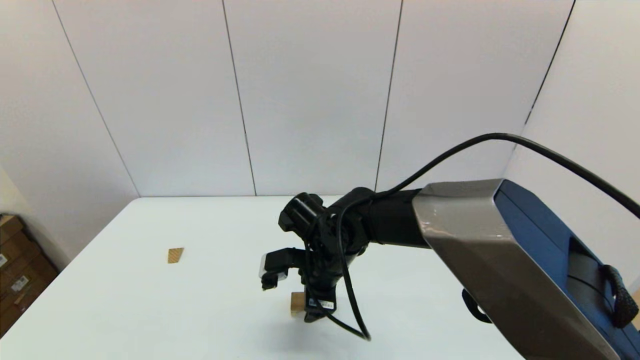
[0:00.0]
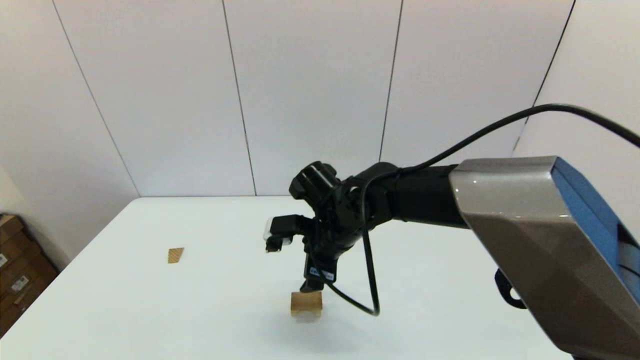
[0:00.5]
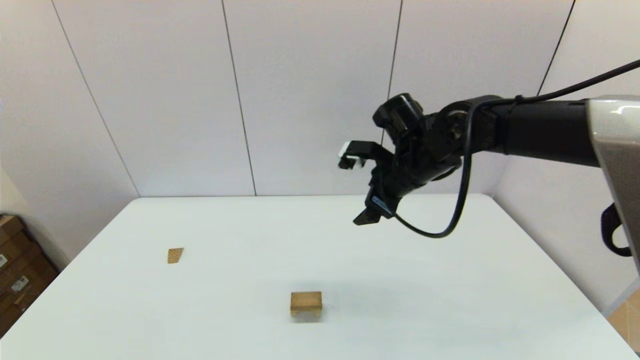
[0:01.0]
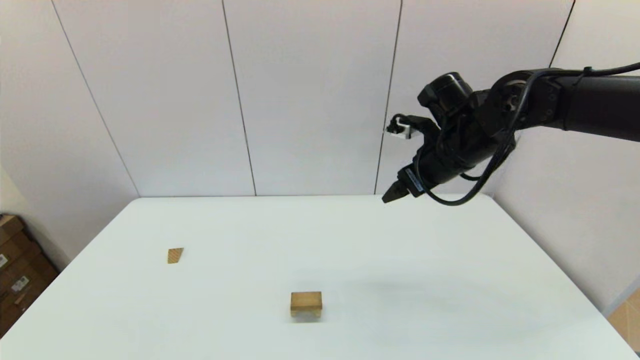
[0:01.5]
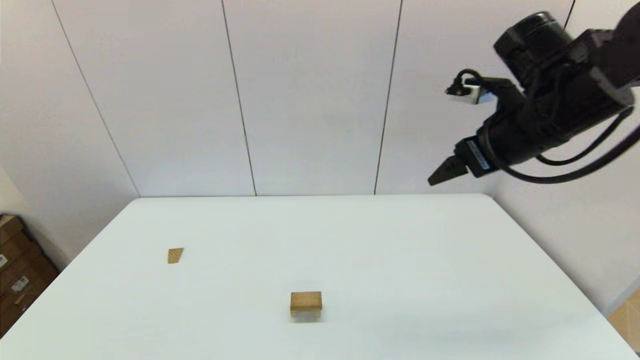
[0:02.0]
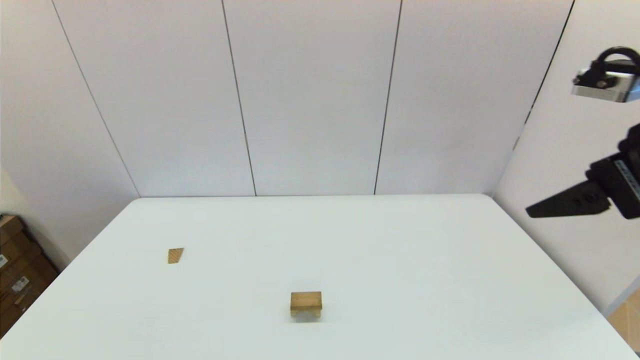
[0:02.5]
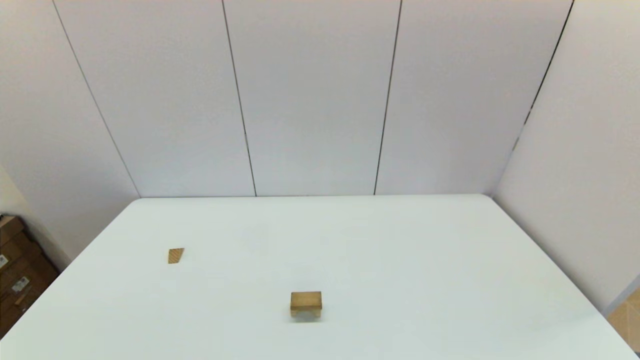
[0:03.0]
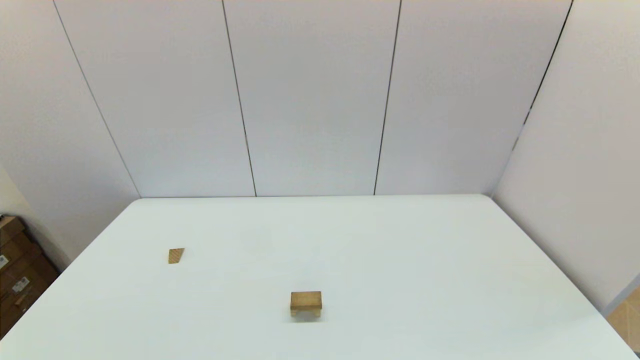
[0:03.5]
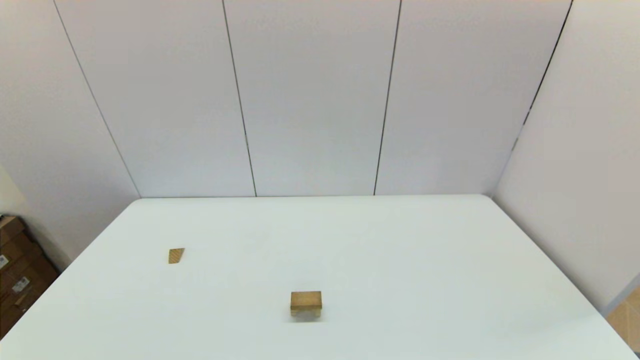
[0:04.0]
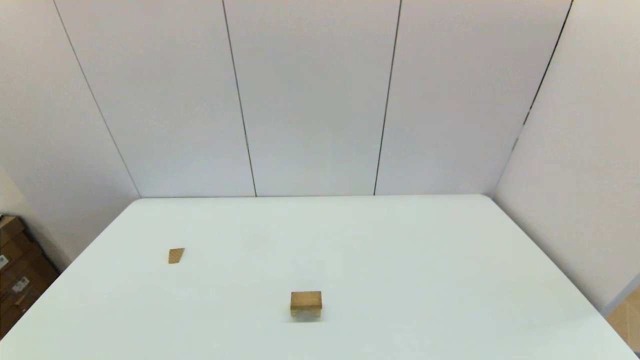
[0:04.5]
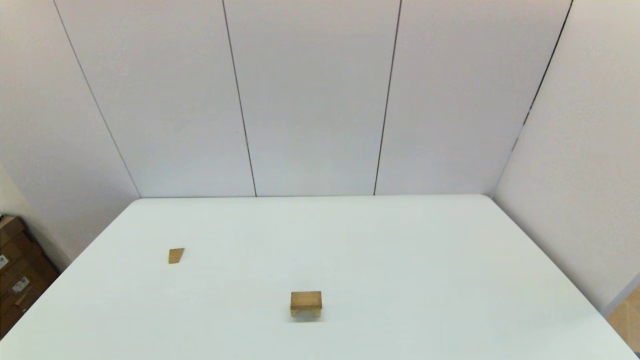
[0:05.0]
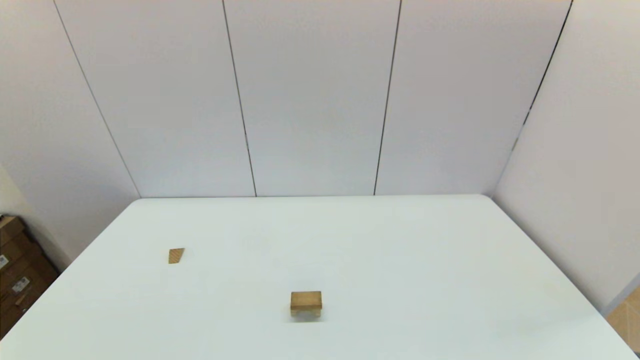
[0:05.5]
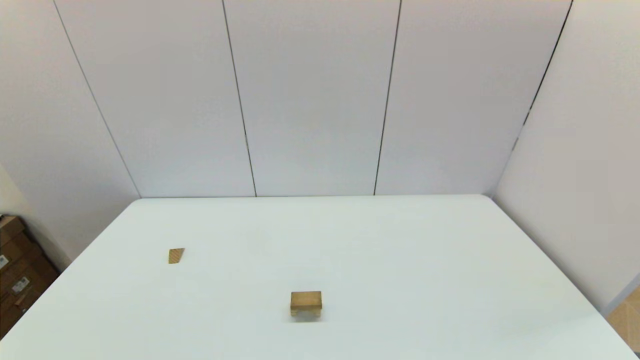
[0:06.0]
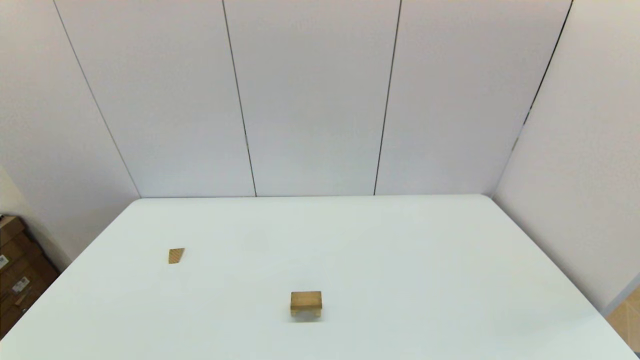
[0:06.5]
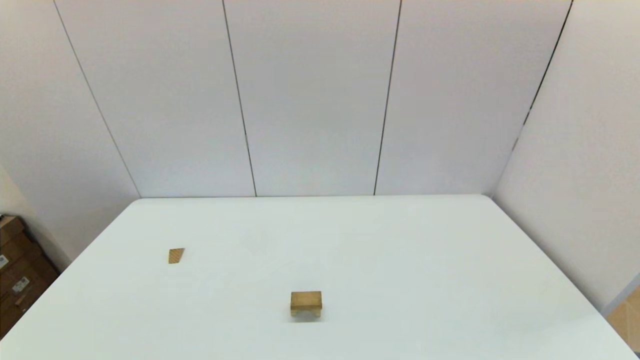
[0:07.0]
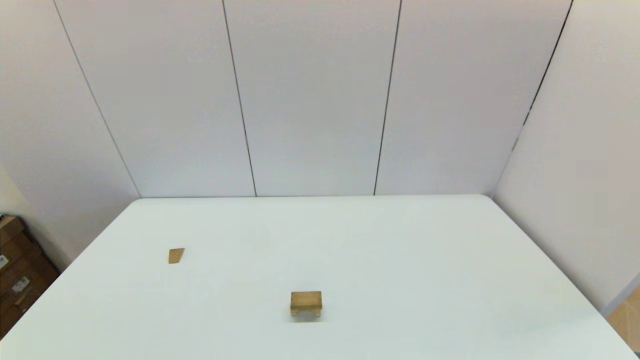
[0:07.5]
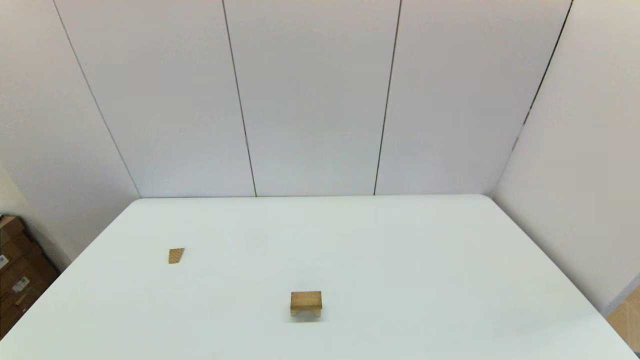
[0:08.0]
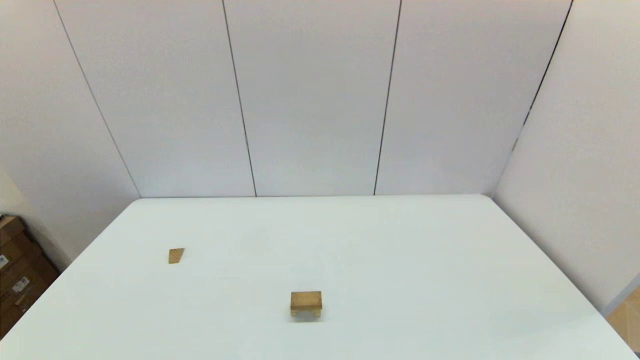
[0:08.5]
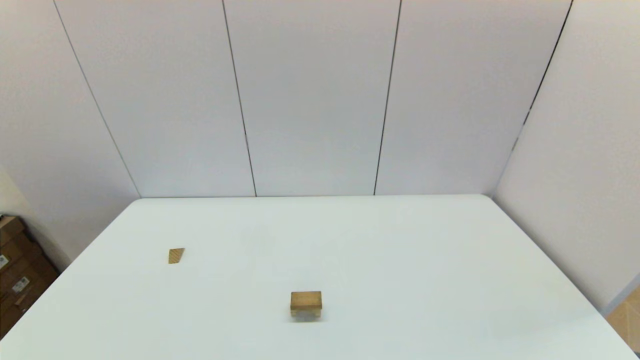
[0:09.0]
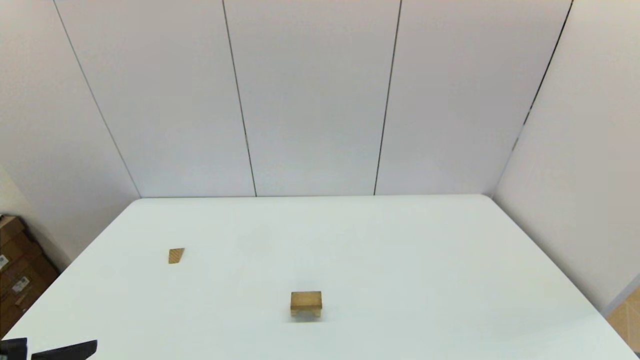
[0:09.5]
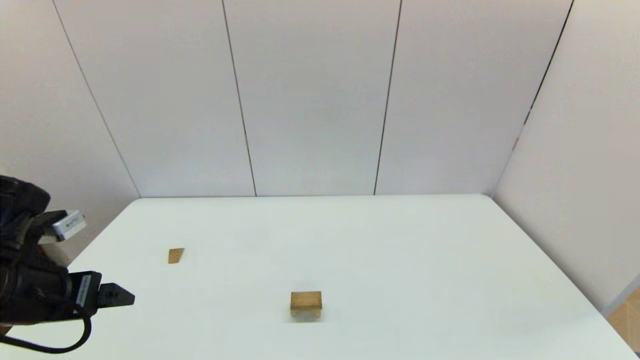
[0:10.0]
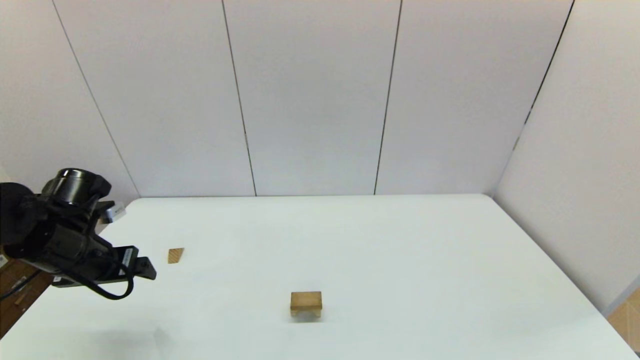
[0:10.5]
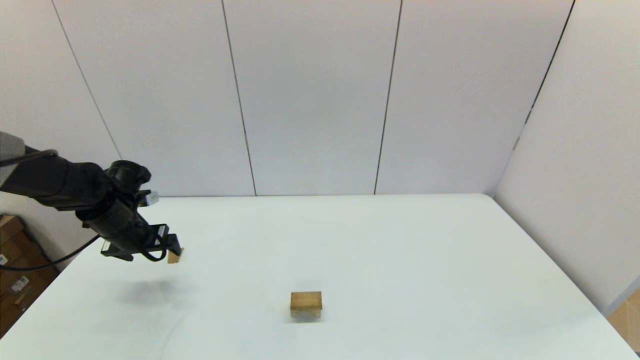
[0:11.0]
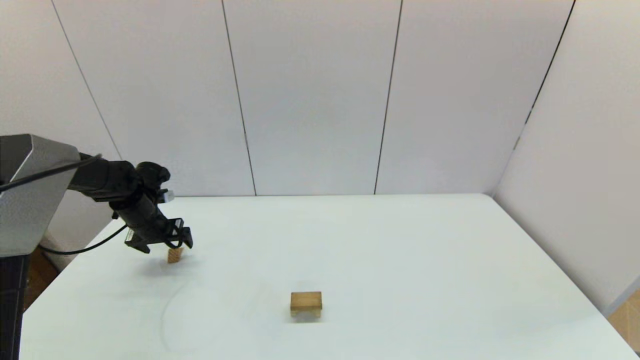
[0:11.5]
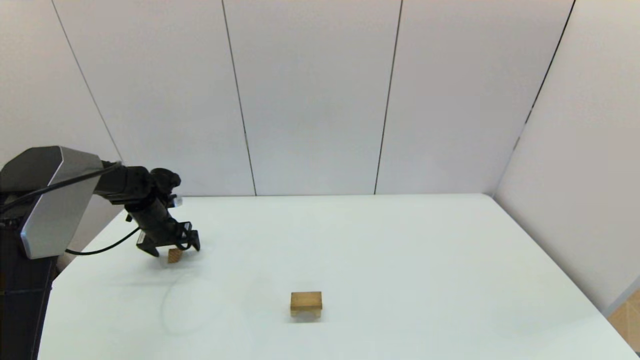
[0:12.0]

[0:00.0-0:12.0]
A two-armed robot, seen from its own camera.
Task of the whole recording: place the arched building blocks in the center of the table, set up the rectangular building blocks, and then set up the triangular building blocks.
0:00.0 to 0:02.0: The right gripper goes roughly 35 cm to the right and upward.
0:02.0 to 0:04.0: The right gripper goes some 35 cm backward.
0:06.0 to 0:08.0: Both grippers stay put.
0:08.0 to 0:10.0: The left gripper heads forward, covering approximately 20 cm.
0:10.0 to 0:12.0: The left gripper moves forward and downward, about 30 cm.

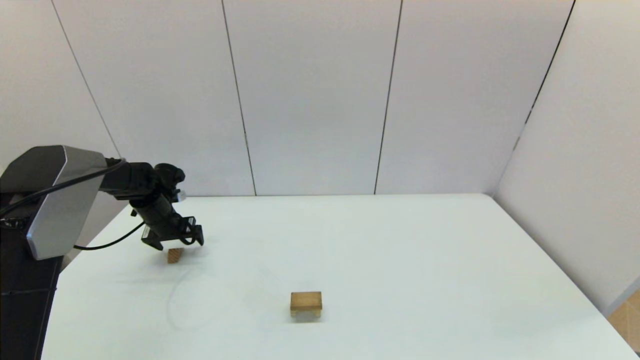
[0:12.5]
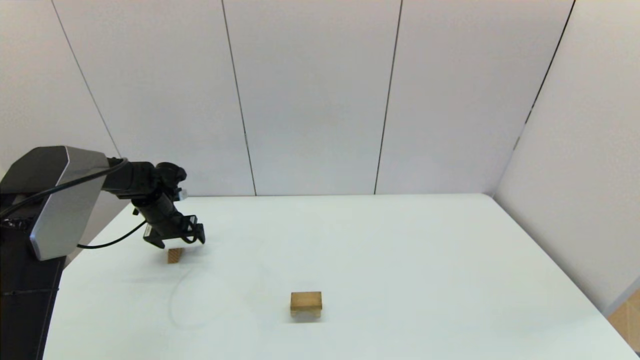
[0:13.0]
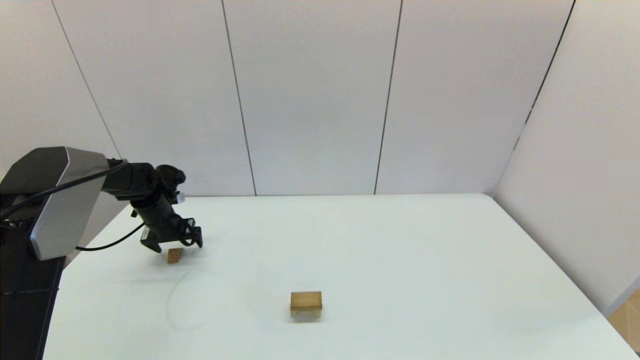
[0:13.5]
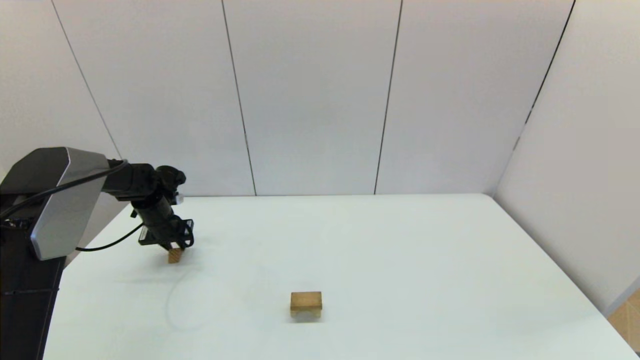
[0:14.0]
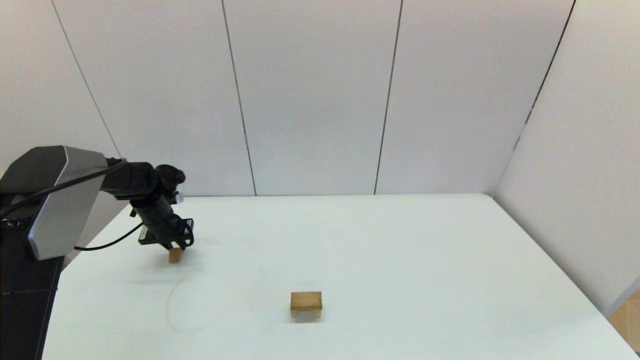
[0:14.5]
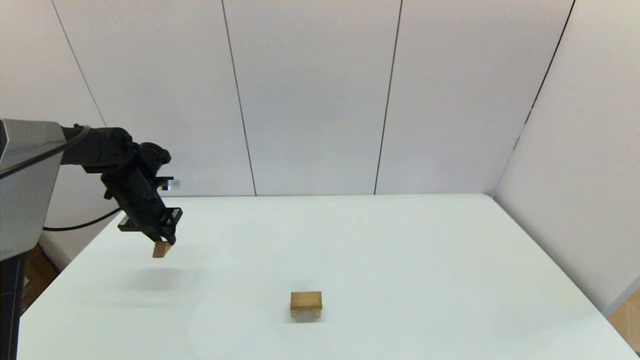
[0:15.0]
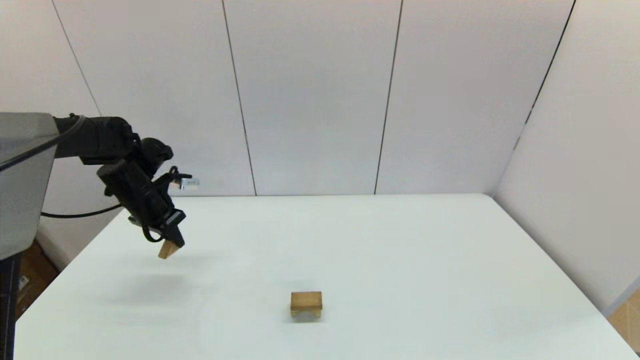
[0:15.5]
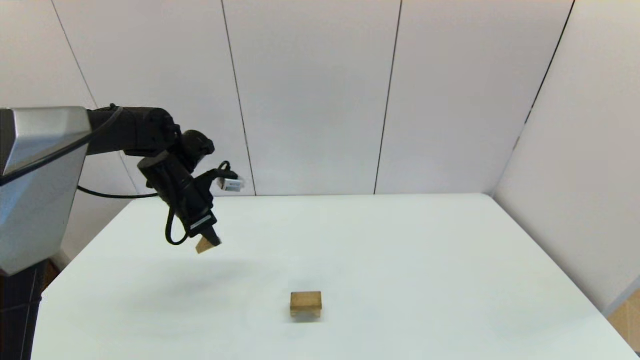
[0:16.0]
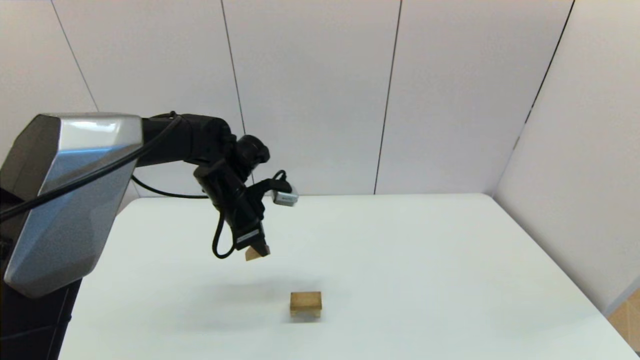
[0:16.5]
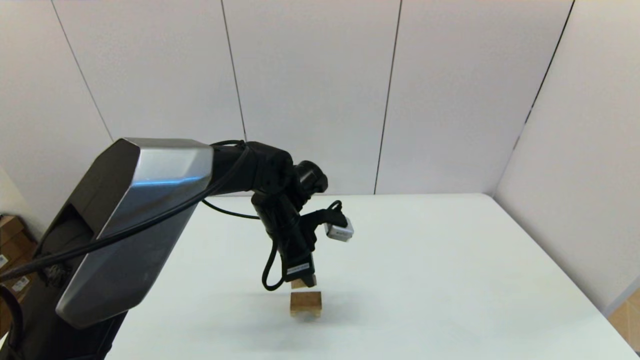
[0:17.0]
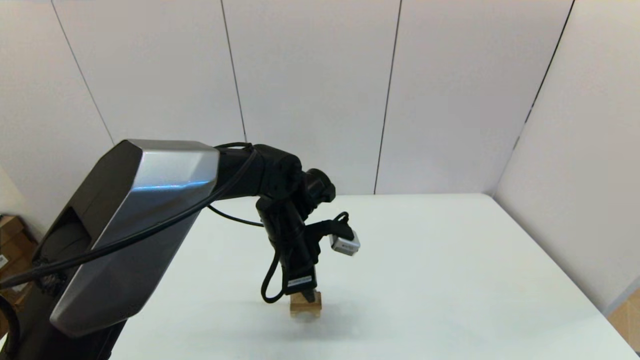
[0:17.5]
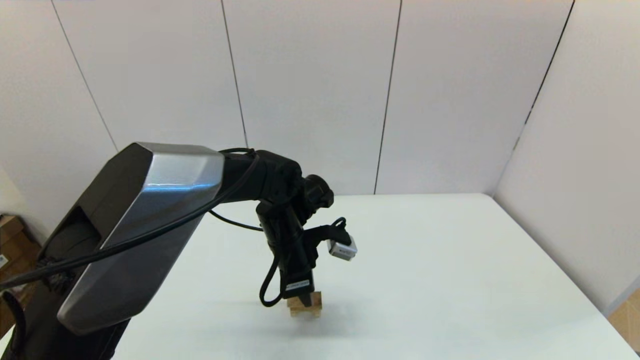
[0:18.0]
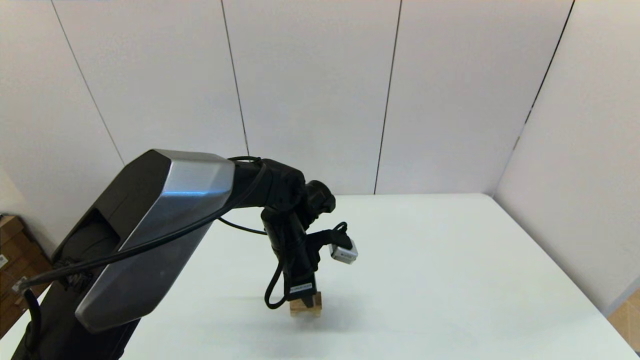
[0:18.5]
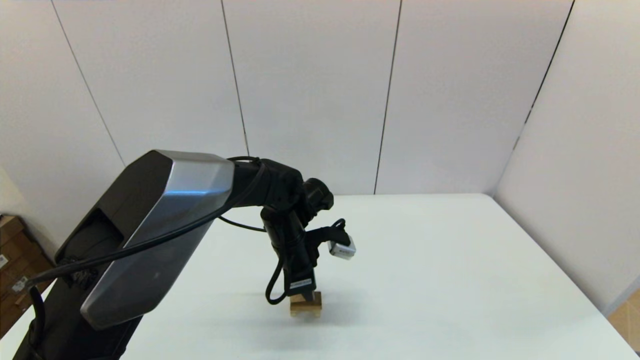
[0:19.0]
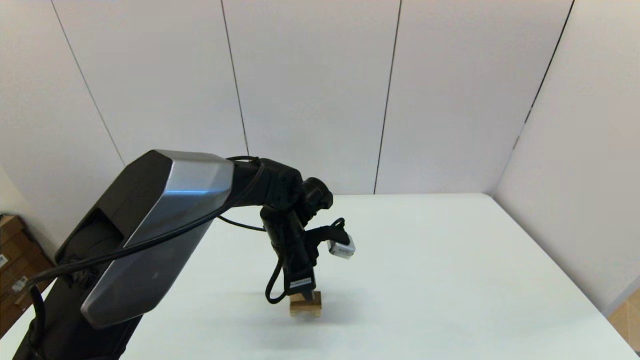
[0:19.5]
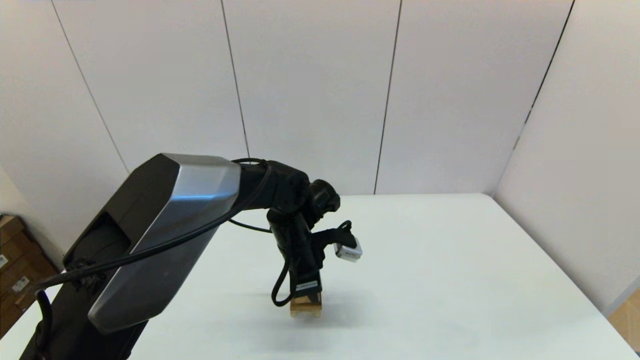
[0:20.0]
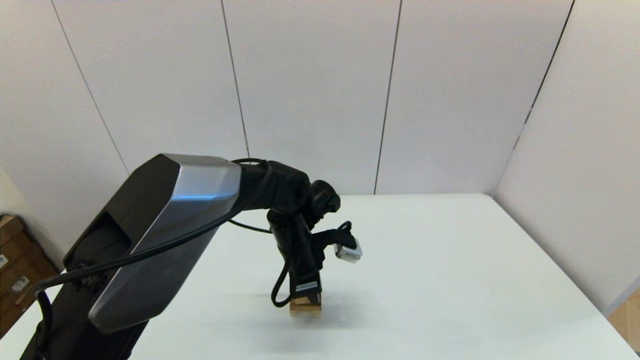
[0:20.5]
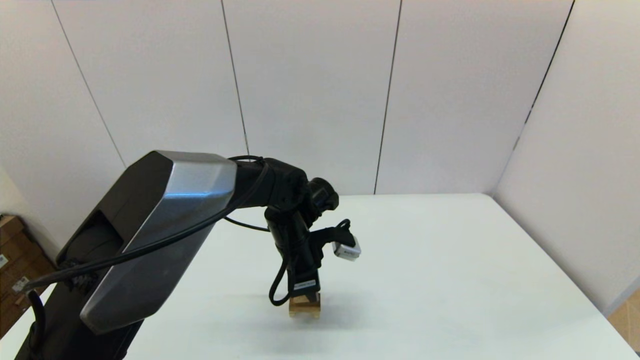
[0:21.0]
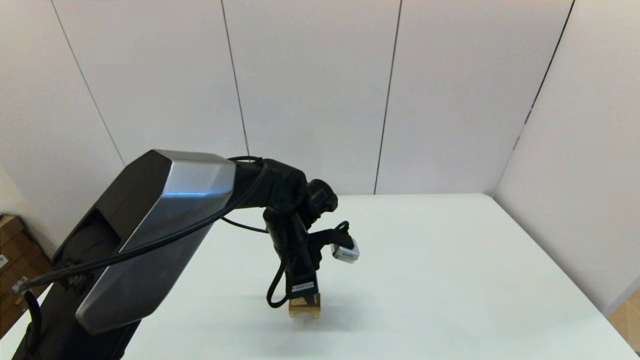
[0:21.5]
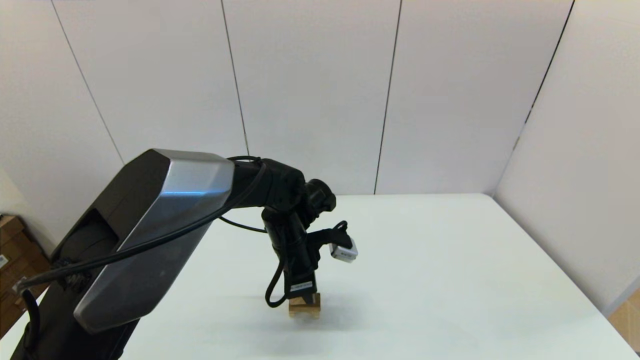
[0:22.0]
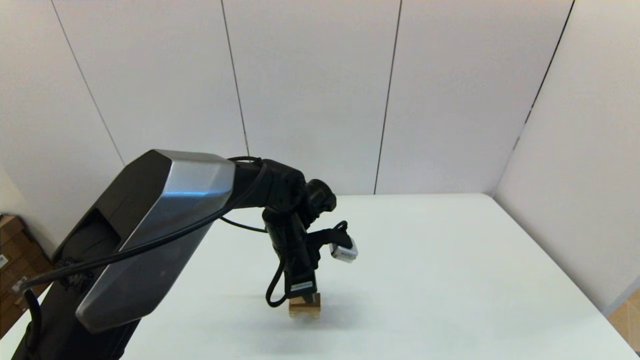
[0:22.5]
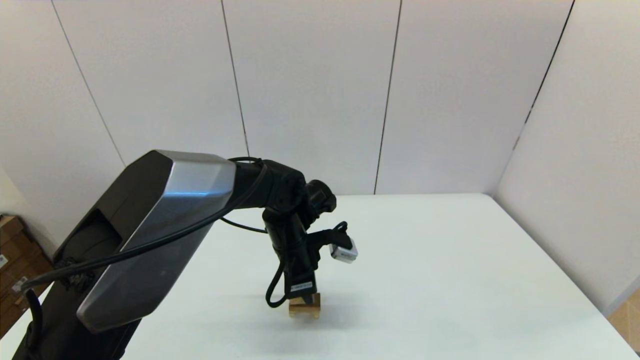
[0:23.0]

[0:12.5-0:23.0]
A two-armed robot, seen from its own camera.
Task of the whole recording: place the arched building blocks in the center of the table, set up the rectangular building blocks, and then set up the triangular building blocks.
0:12.5 to 0:14.5: The left gripper closes.
0:14.5 to 0:16.5: The left gripper heads to the right and upward, covering roughly 25 cm.
0:16.5 to 0:19.0: The left gripper shifts roughly 10 cm to the right and downward.
0:19.0 to 0:23.0: Both grippers stay put.
